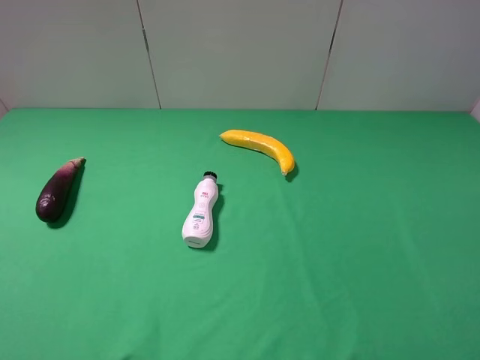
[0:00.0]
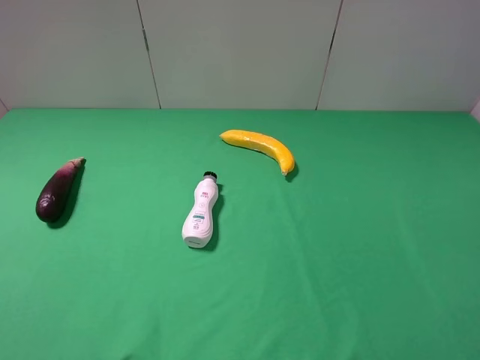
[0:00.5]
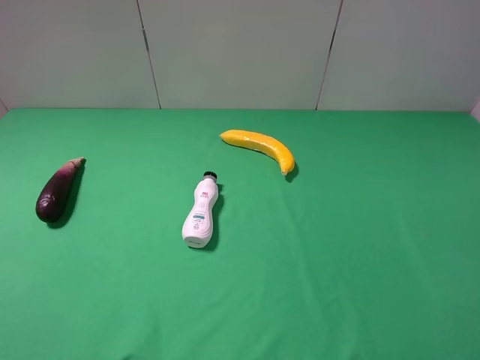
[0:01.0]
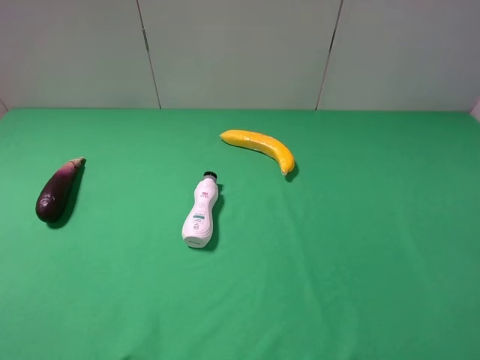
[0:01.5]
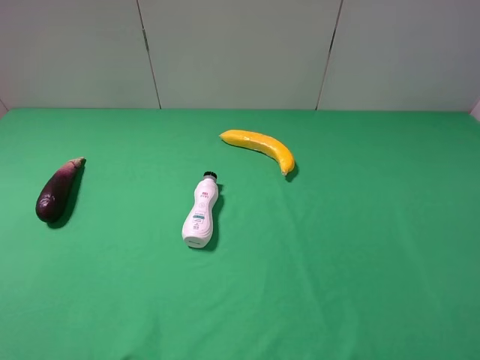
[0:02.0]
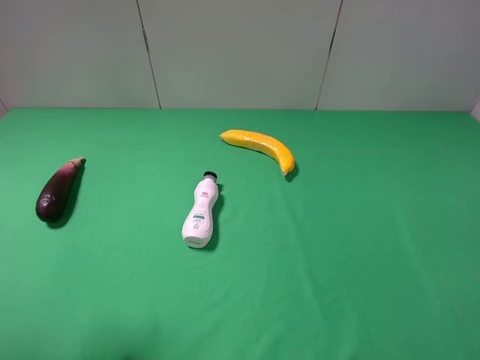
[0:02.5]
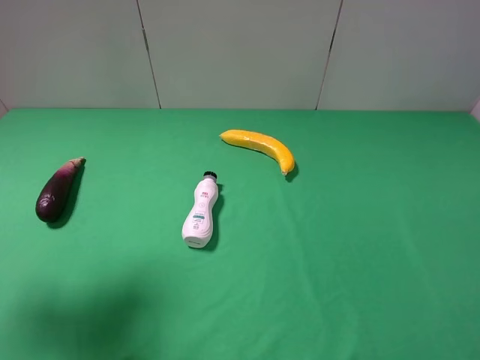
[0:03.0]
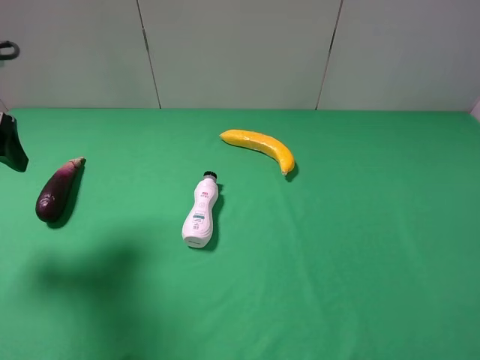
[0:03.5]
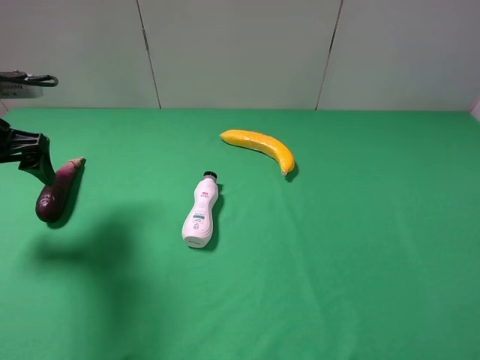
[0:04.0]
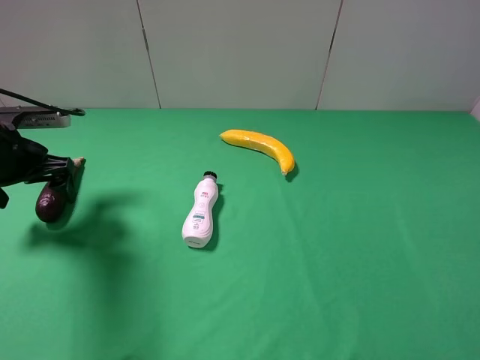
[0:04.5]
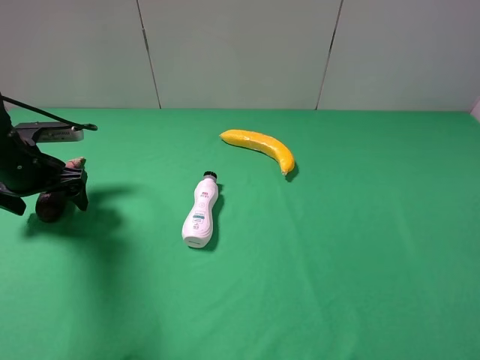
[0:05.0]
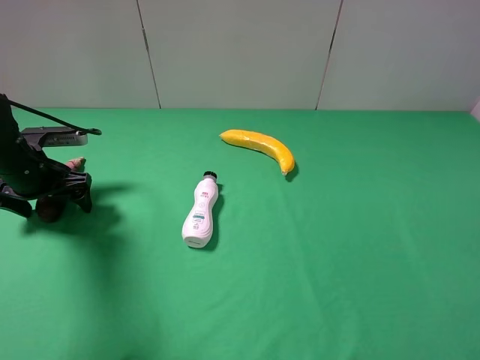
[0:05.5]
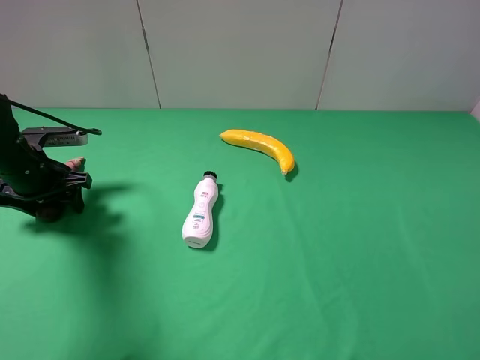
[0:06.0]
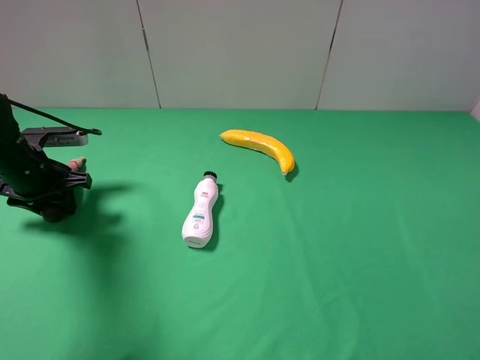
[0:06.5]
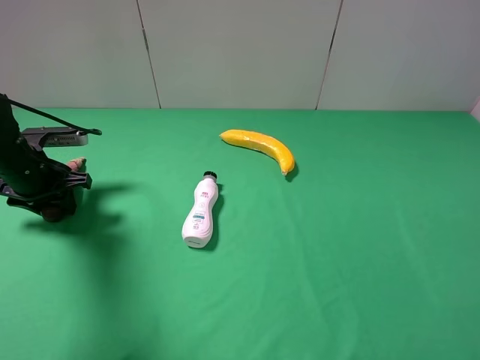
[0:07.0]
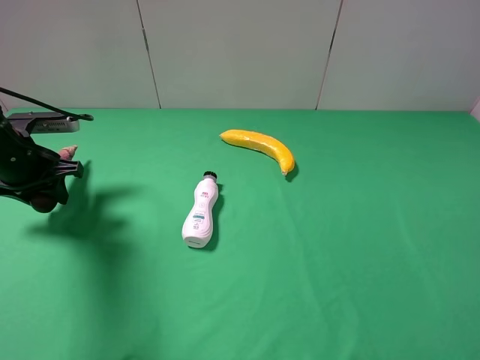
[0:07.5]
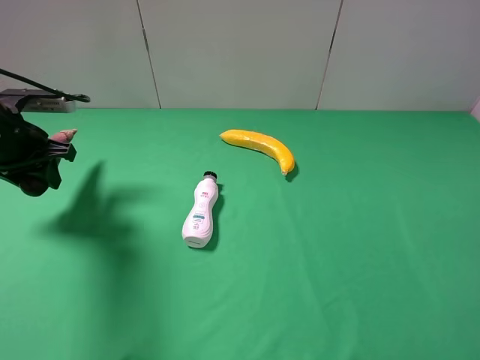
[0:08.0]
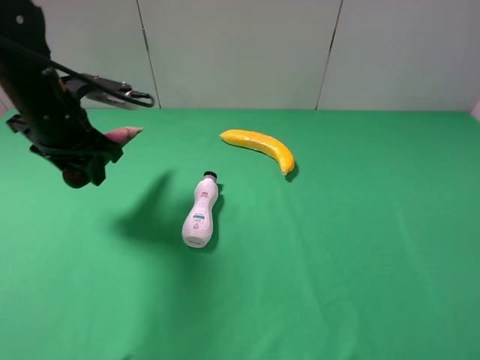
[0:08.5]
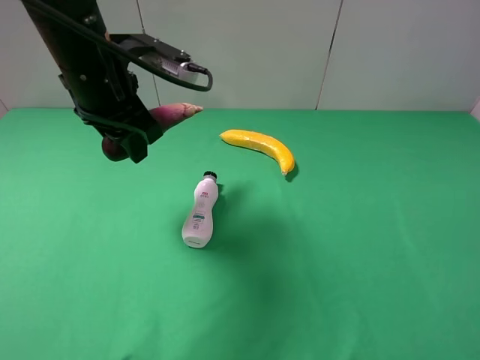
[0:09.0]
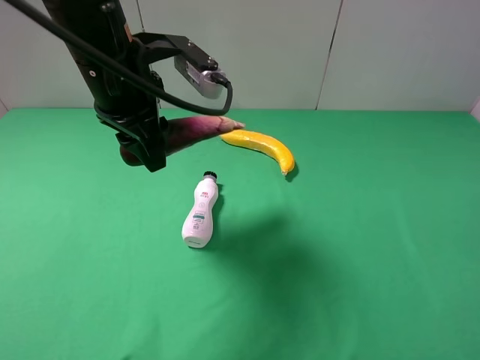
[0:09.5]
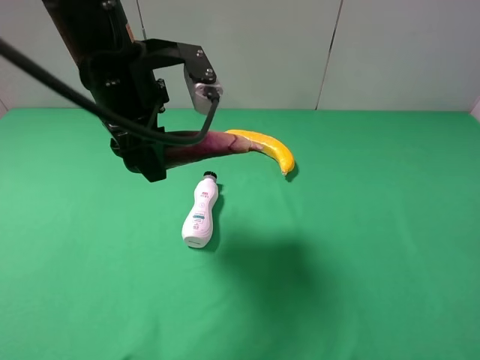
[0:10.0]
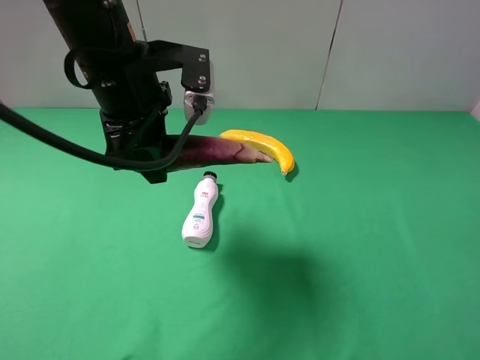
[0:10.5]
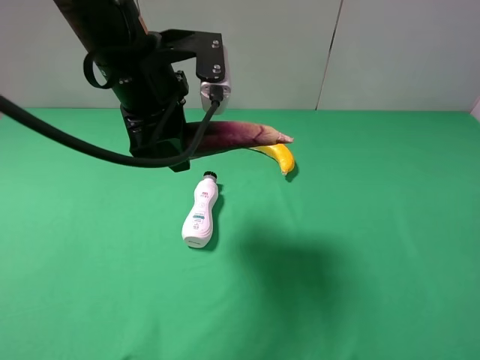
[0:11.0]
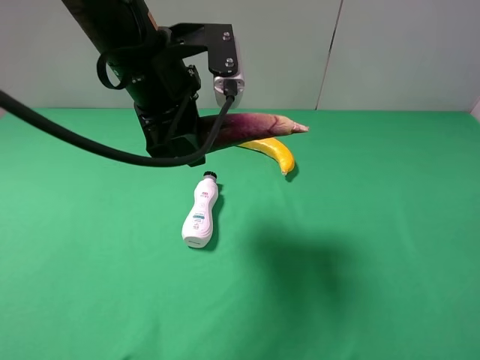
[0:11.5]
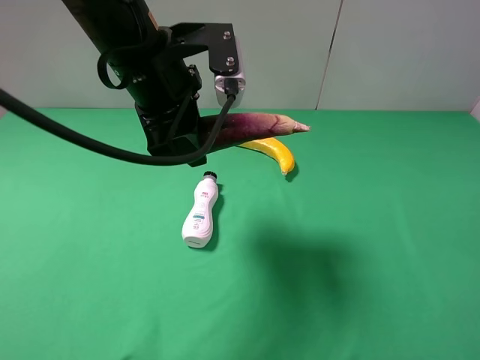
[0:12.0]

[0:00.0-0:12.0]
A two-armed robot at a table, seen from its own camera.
Task of the whole recording: use the left gripper to pick up the item and transfer it from the left gripper to the right gripper.
Step, 0:00.0 to 0:06.0: Use the left gripper to grab the eggplant on the left side of the table.
0:02.0 to 0:04.0: The left gripper shifts roughly 25 cm forward.
0:04.0 to 0:06.0: The left gripper shifts some 10 cm downward, and closes.
0:06.0 to 0:08.0: The left gripper shifts roughly 5 cm upward, and closes up.
0:08.0 to 0:10.0: The left gripper is displaced to the right and upward by some 20 cm.
0:10.0 to 0:12.0: There are only small adjustments of the grippers.

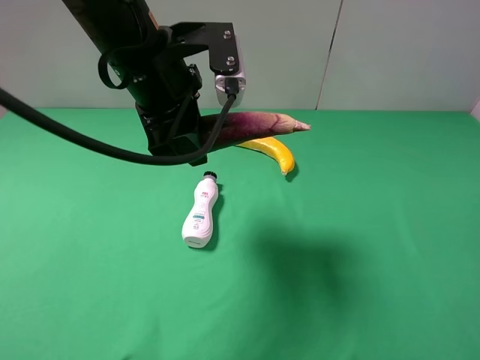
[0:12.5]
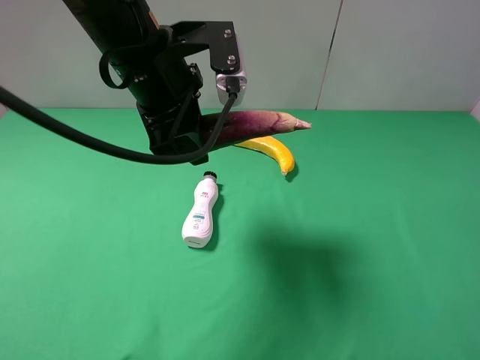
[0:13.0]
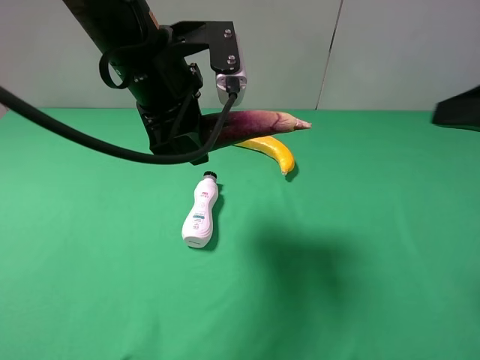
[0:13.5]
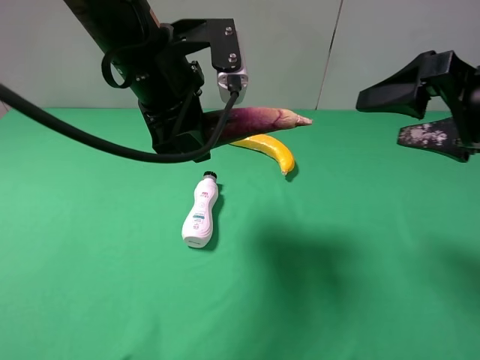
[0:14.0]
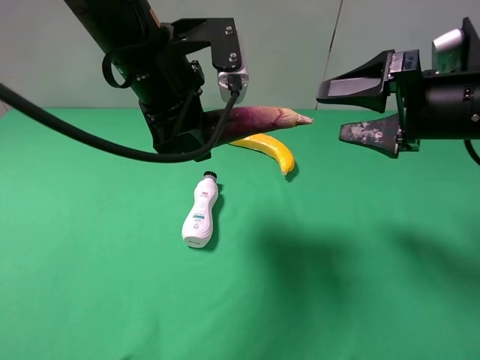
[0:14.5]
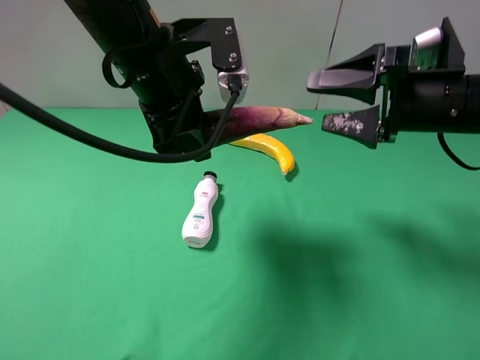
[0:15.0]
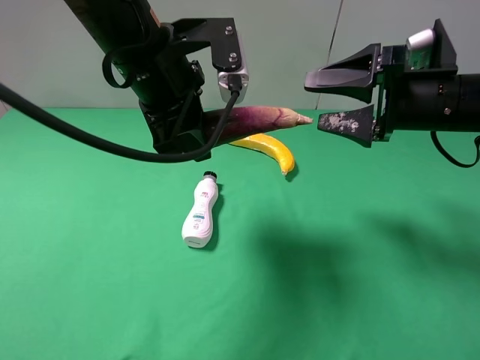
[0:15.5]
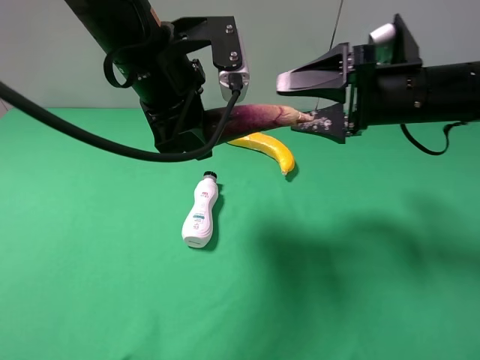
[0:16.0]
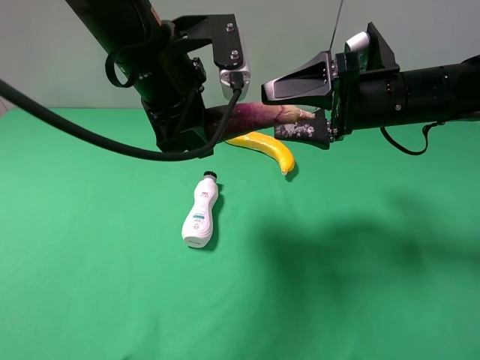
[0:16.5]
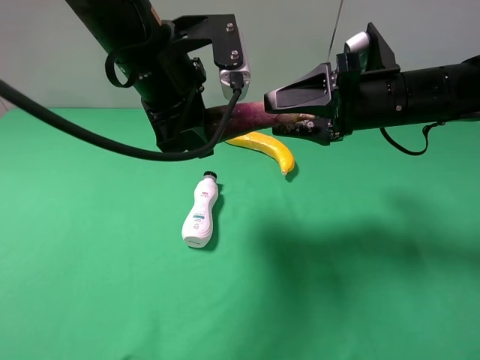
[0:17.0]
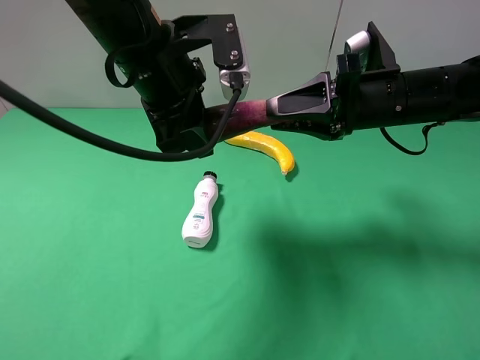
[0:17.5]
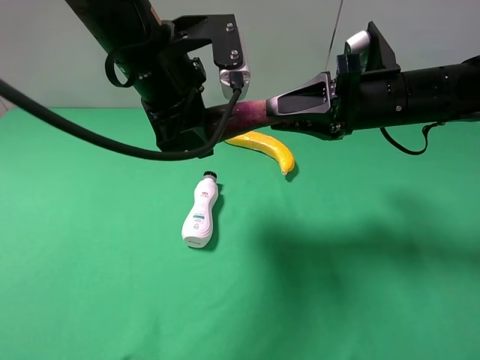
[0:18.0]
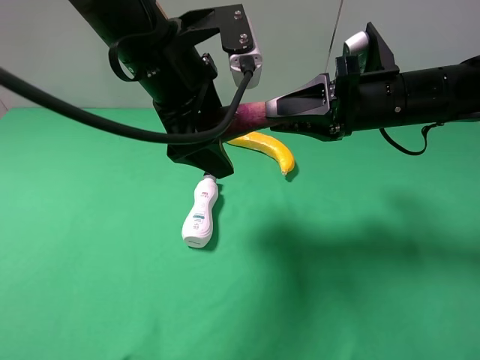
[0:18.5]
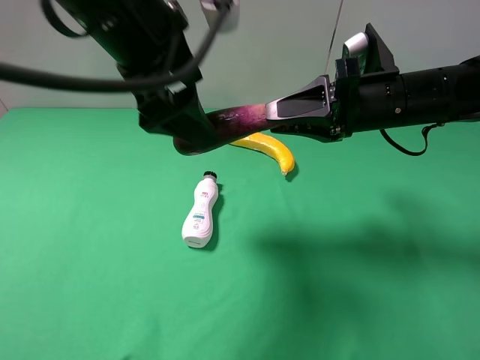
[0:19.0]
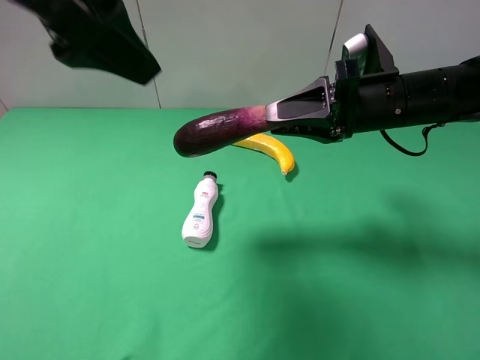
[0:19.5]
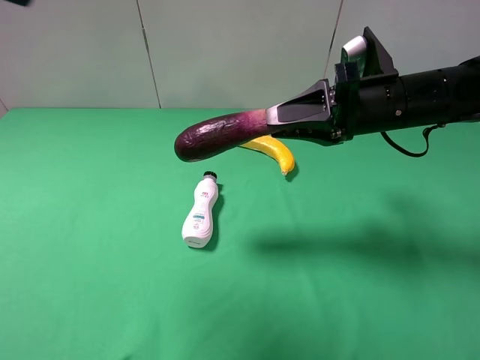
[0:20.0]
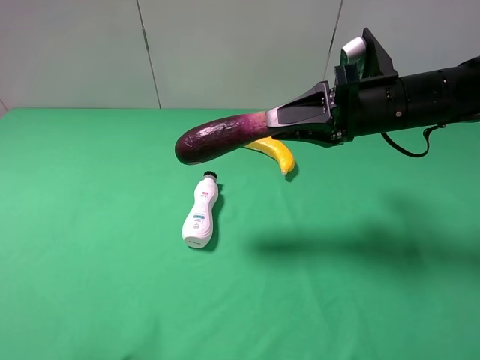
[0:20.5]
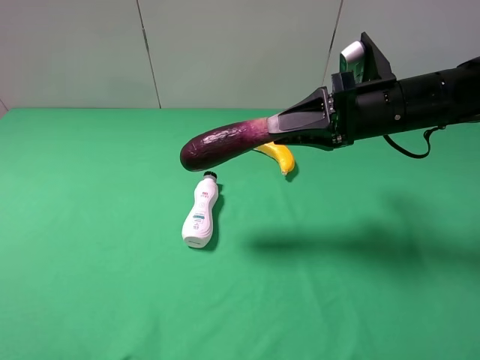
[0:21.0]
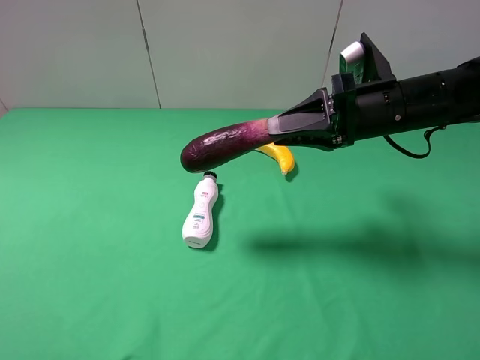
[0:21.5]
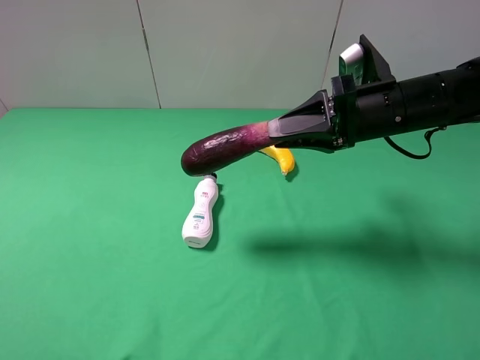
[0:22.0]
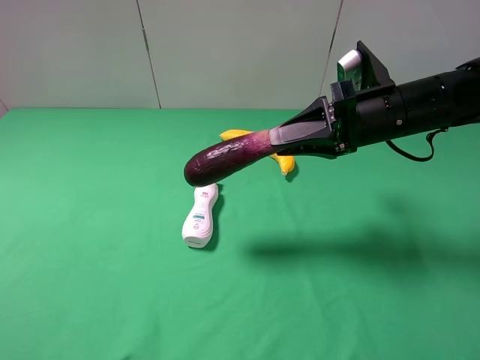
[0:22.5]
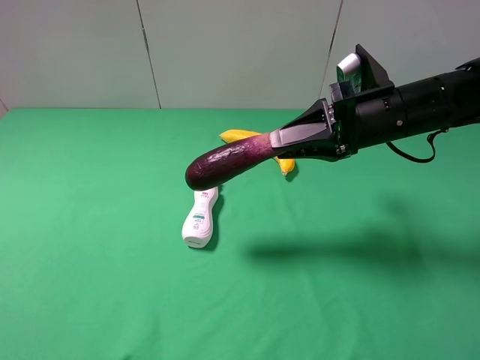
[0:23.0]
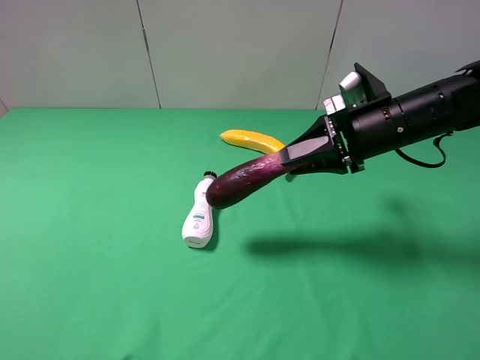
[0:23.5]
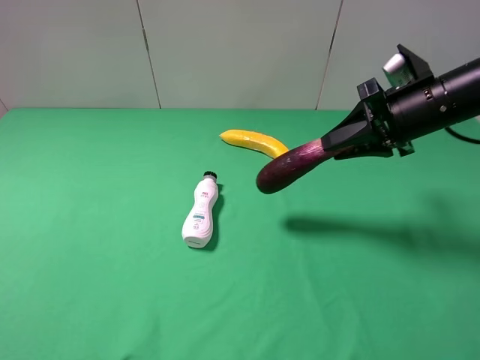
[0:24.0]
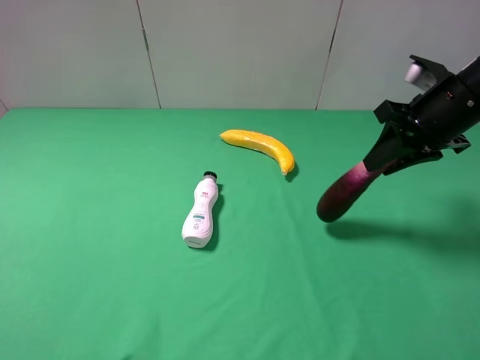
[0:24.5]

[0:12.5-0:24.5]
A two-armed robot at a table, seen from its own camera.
Task of the whole recording: use the left gripper to pick up the item and transfer it from the left gripper to the right gripper.
Step, 0:12.5 to 0:18.5: Pass the eggplant to the right gripper.
0:12.5 to 0:14.5: The right gripper goes some 25 cm forward.
0:14.5 to 0:16.5: The right gripper shifts about 5 cm to the left.
0:16.5 to 0:18.5: The right gripper closes, while the left gripper opens up.
0:18.5 to 0:20.5: The left gripper heads backward, to the left and upward, covering roughly 35 cm.
0:20.5 to 0:22.5: The left gripper moves downward and backward, approximately 10 cm.
0:22.5 to 0:24.5: The right gripper heads to the right, covering roughly 10 cm.

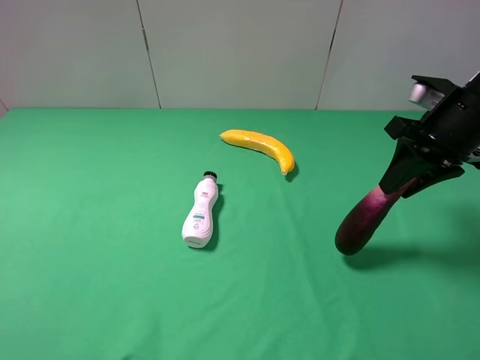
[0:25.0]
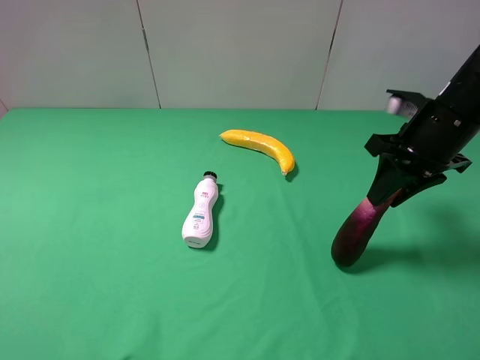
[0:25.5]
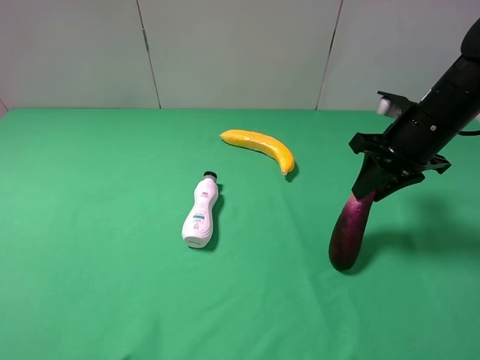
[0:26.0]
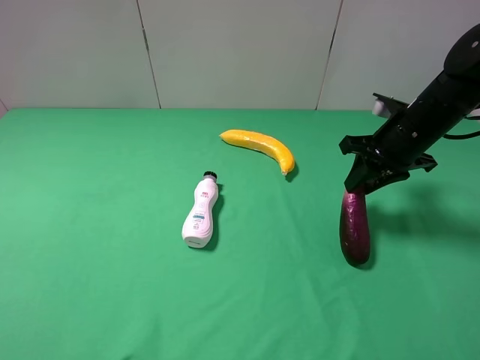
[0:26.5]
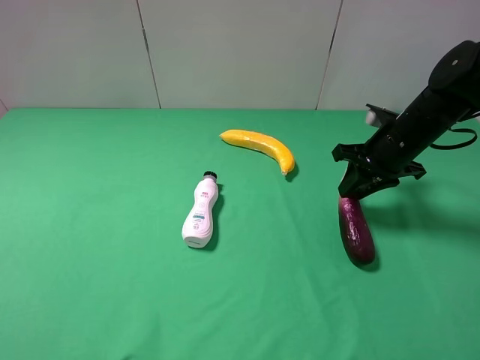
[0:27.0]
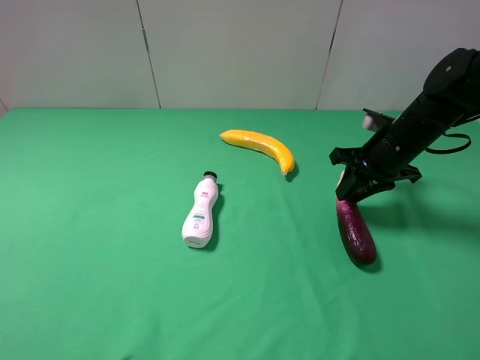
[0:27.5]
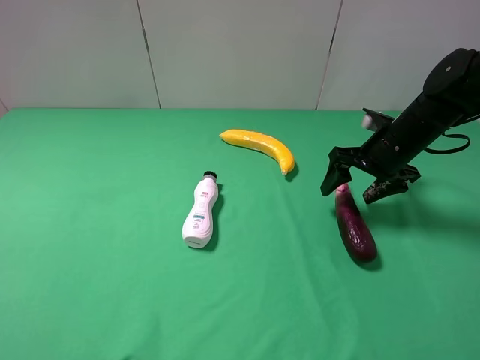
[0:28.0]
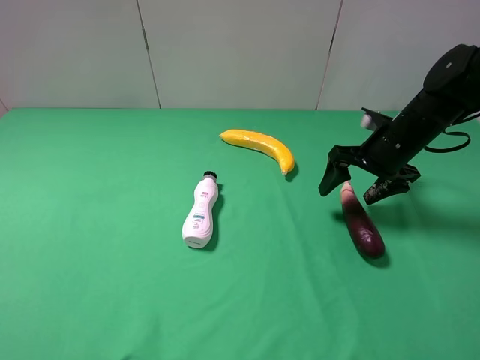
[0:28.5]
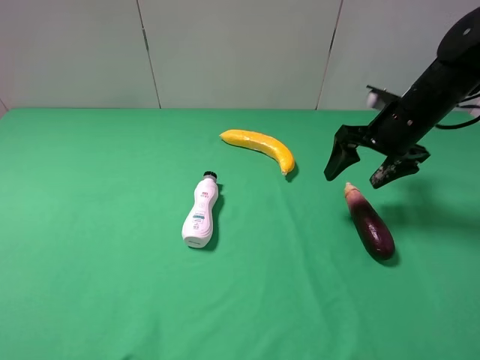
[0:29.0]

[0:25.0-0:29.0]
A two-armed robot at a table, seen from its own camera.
Task of the whole recording: use the left gripper to pick up the item and transfer it from the left gripper to the right gripper.
Step, 0:25.0 to 0:28.0: The right gripper places eggplant on the right side of the table.
0:25.0 to 0:27.0: The right gripper shifts some 10 cm downward and forward.
0:27.0 to 0:29.0: The right gripper opens up.
